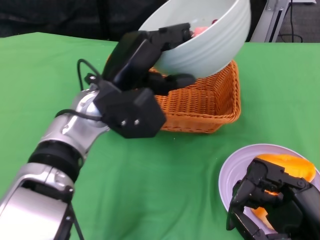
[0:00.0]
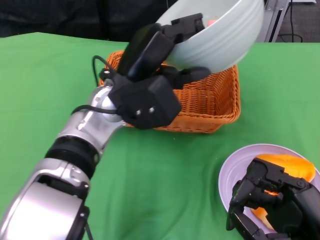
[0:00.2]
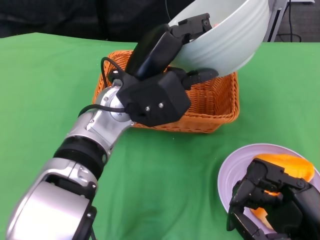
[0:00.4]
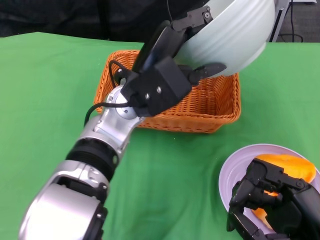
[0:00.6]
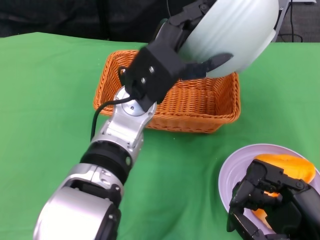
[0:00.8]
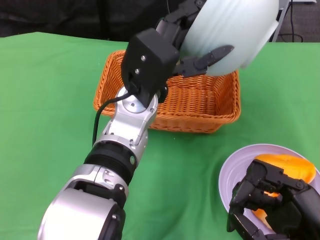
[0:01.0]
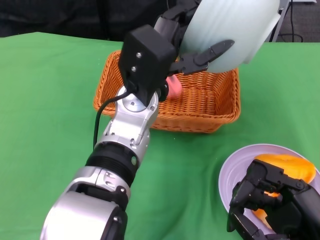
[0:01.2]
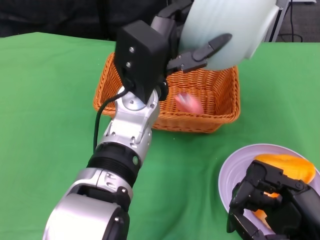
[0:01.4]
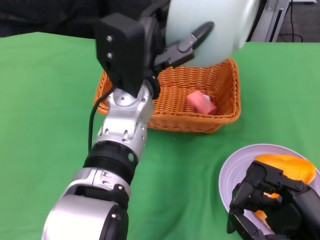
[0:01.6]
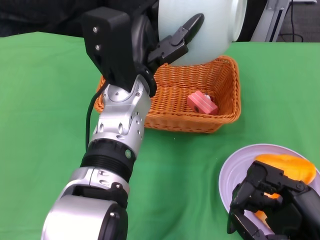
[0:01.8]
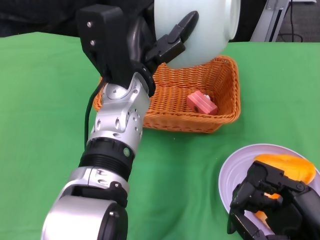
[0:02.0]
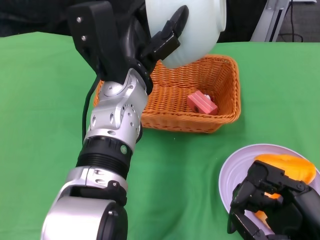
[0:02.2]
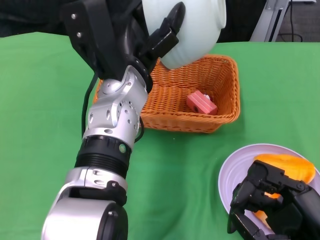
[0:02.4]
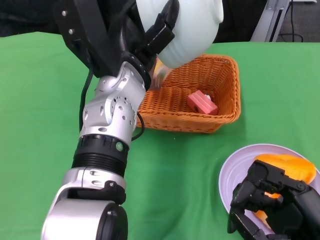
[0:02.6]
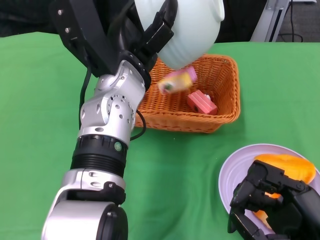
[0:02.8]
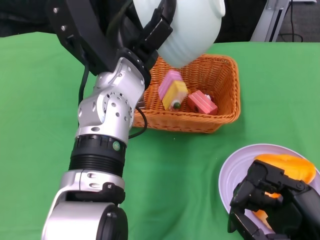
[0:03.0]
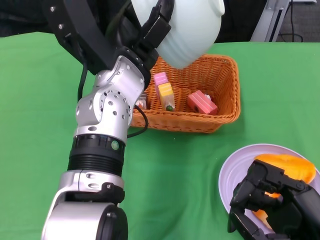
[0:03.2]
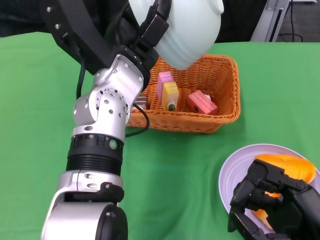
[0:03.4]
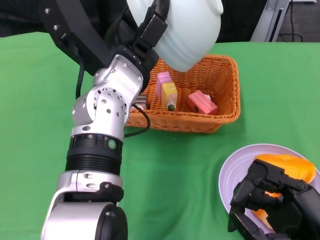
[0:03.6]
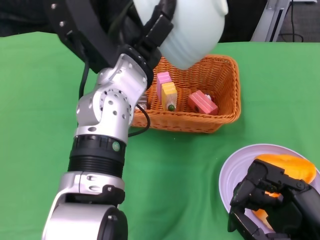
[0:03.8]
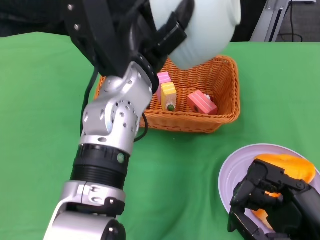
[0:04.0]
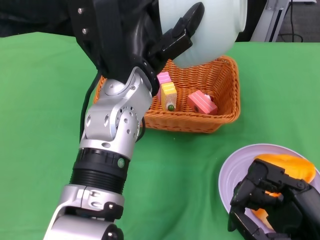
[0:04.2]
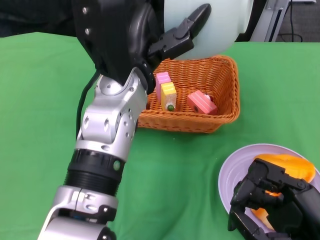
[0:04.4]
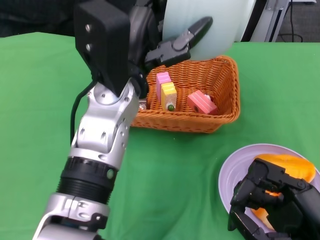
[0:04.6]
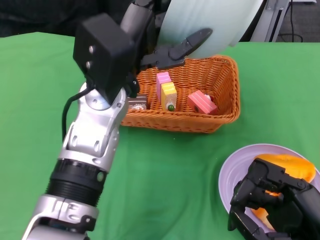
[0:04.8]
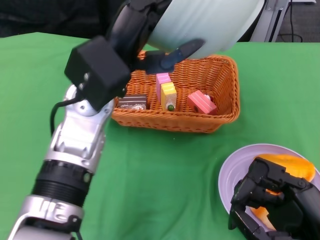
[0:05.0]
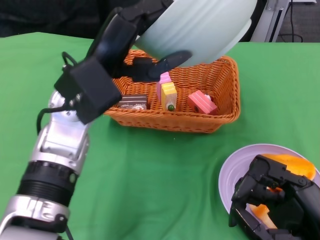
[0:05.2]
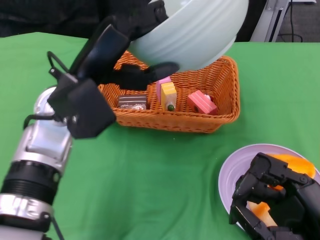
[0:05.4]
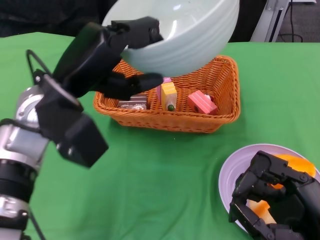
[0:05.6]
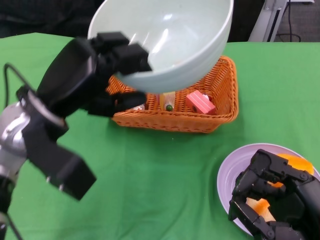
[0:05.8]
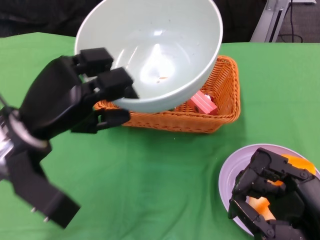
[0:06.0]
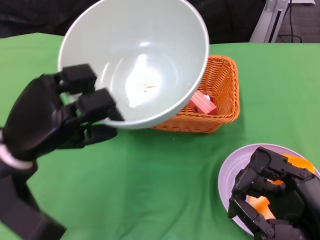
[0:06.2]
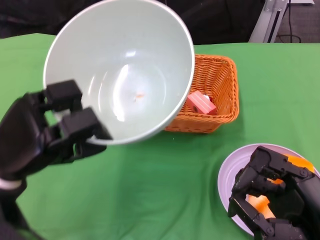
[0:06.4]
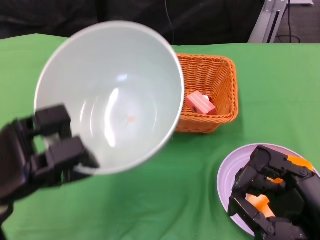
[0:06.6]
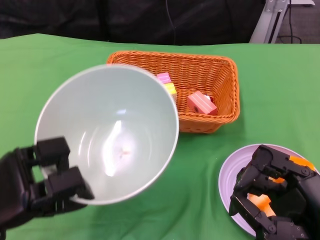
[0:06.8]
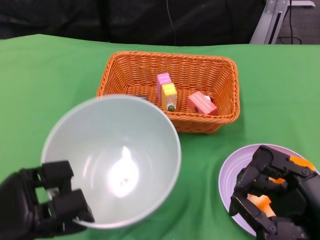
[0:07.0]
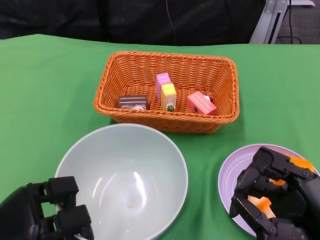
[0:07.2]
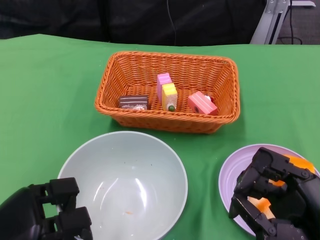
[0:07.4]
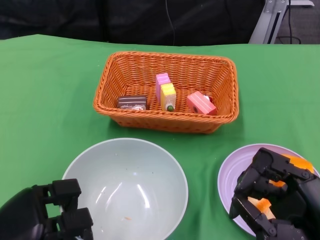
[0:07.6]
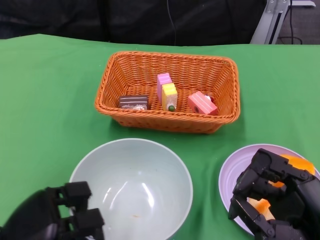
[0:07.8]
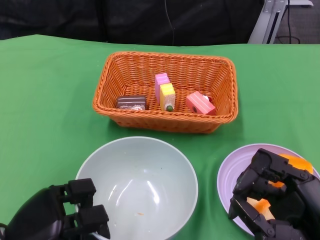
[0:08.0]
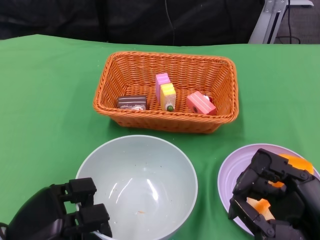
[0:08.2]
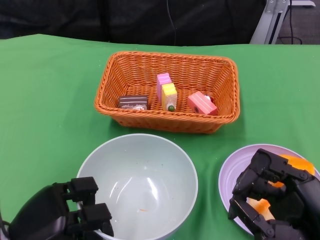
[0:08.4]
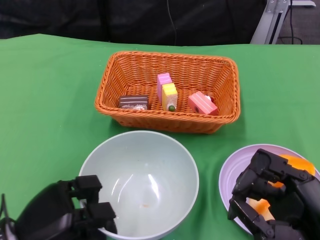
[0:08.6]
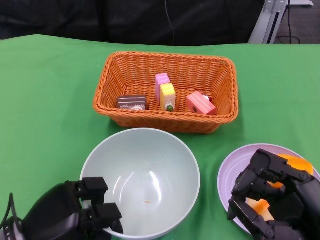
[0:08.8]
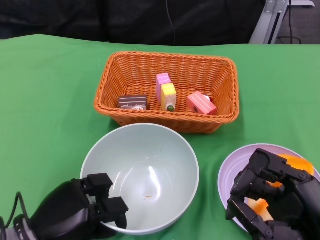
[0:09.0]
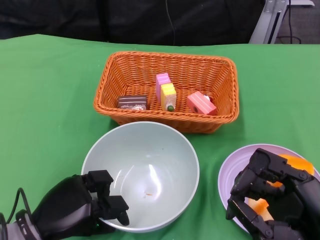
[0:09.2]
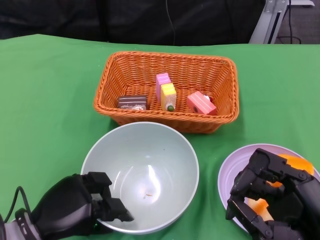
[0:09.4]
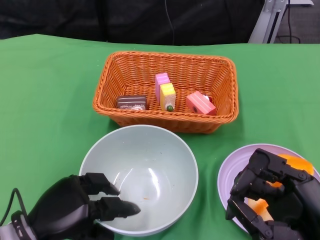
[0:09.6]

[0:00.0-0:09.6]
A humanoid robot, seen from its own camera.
Step, 0:00.0 to 0:03.8: Pour the cake into the basket with the left gripper.
Step, 0:04.0 to 0:09.6: Place the bowl on the table with the left gripper.
0:00.0 to 0:01.6: The left hand ends up about 5 cm from where it was.
0:04.8 to 0:06.4: The left hand heads to the left, downward and backward, covering approximately 20 cm.
0:06.4 to 0:08.0: The left hand travels downward and backward by about 10 cm.
0:08.0 to 0:09.6: The hands stay close to where they were, moving slightly.

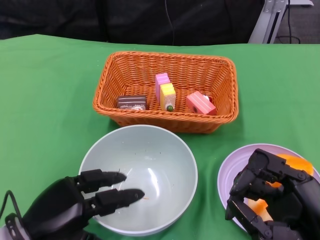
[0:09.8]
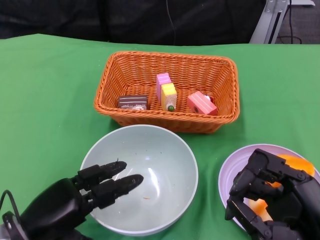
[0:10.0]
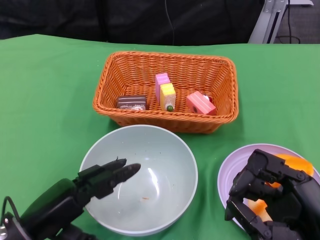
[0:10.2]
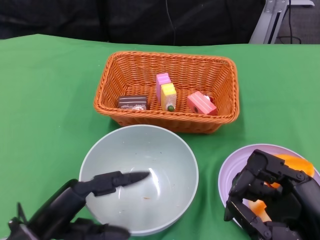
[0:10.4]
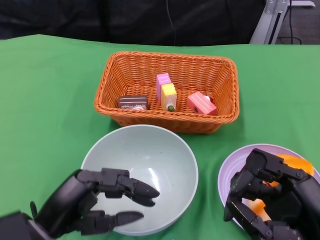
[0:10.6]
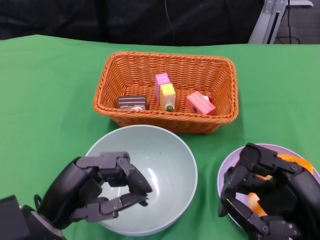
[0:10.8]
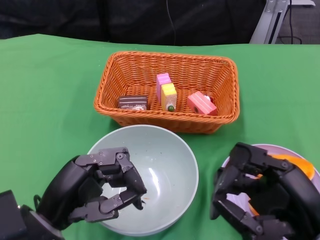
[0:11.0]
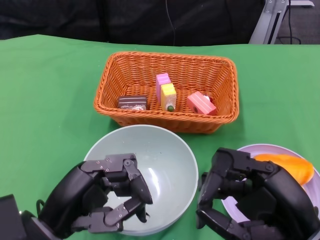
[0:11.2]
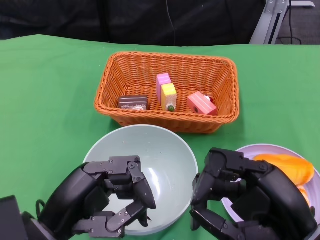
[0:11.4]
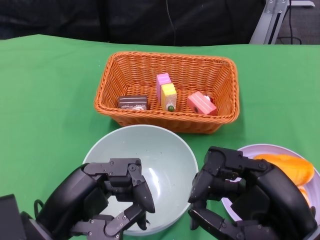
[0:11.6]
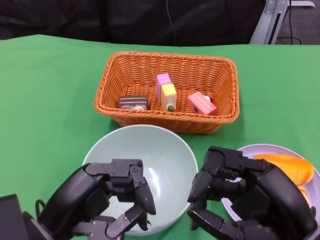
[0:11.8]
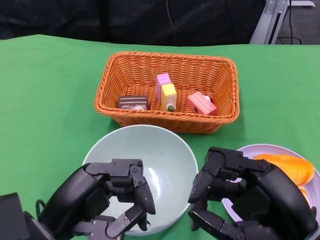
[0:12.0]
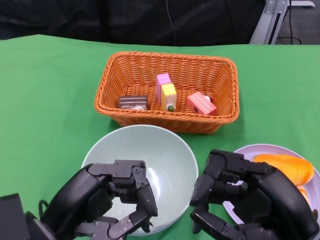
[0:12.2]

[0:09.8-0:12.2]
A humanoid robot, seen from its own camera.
0:09.8 to 0:11.0: The left hand moves upward, some 5 cm.
0:11.0 to 0:12.2: The hands stay close to where they were, moving slightly.

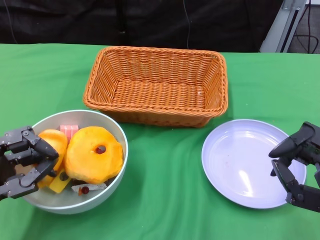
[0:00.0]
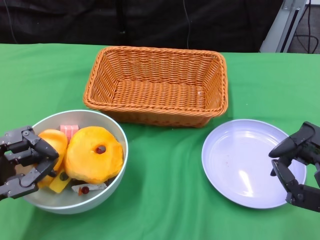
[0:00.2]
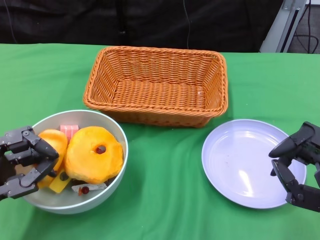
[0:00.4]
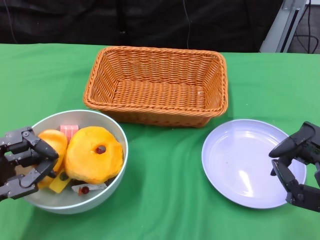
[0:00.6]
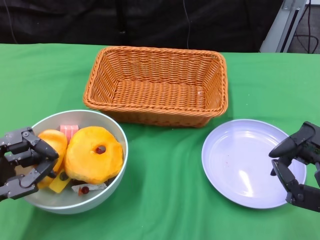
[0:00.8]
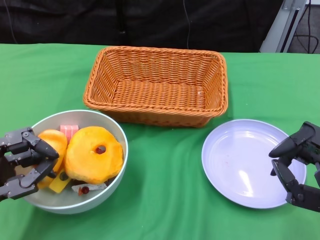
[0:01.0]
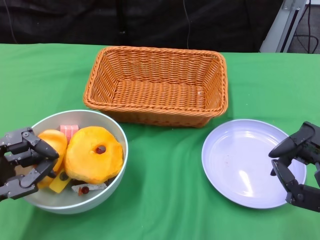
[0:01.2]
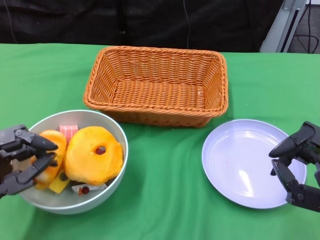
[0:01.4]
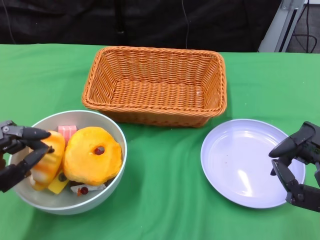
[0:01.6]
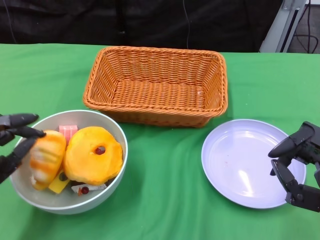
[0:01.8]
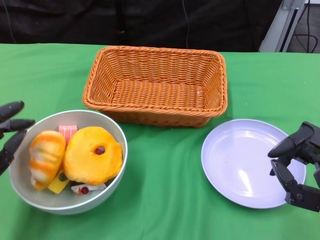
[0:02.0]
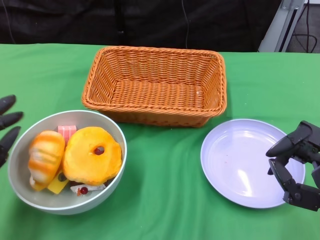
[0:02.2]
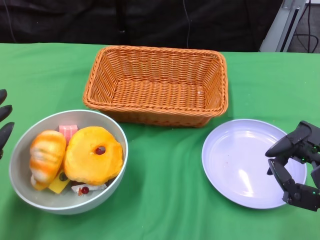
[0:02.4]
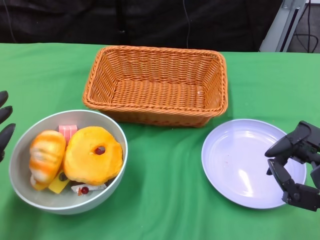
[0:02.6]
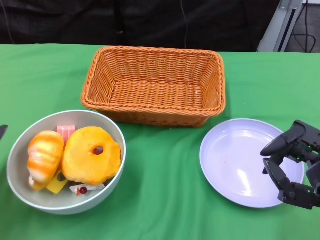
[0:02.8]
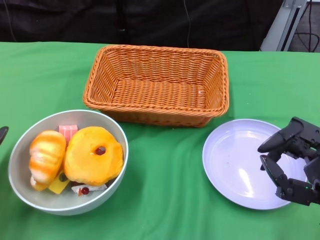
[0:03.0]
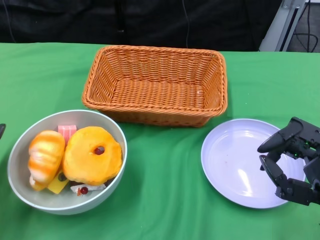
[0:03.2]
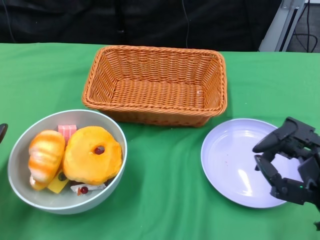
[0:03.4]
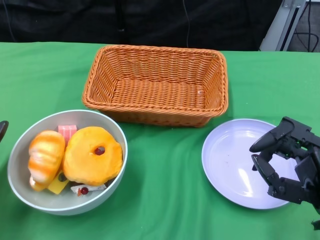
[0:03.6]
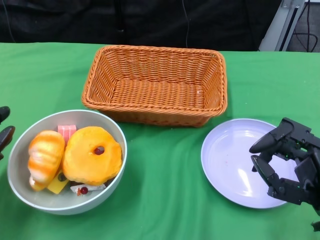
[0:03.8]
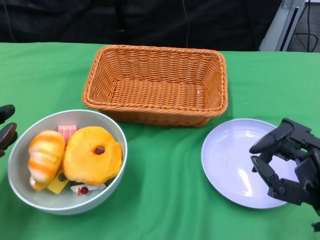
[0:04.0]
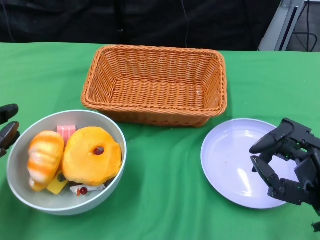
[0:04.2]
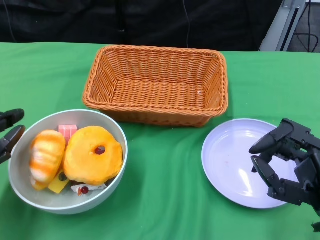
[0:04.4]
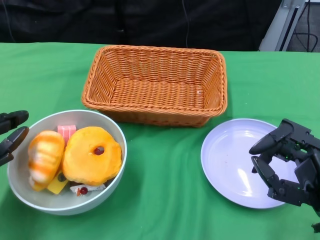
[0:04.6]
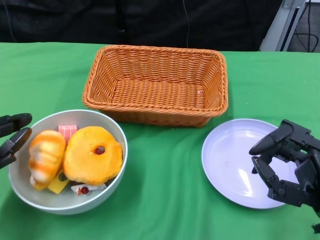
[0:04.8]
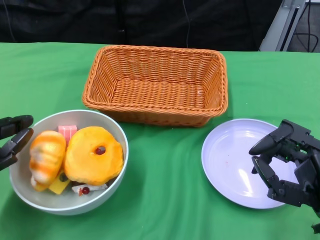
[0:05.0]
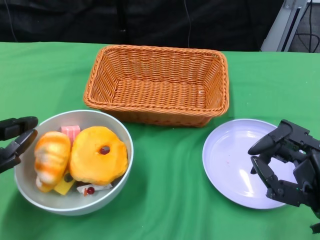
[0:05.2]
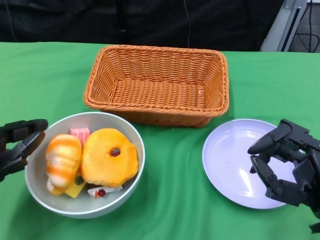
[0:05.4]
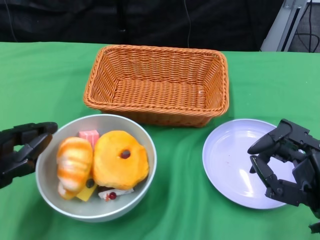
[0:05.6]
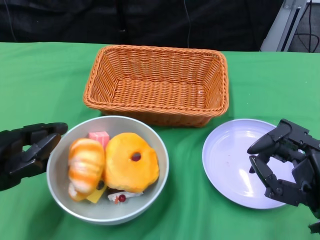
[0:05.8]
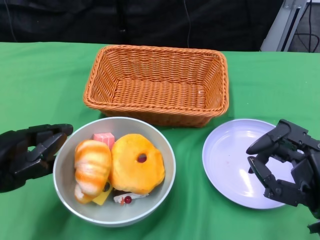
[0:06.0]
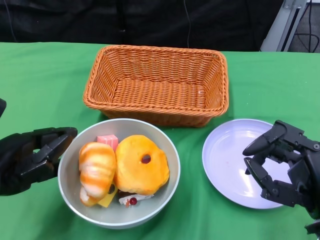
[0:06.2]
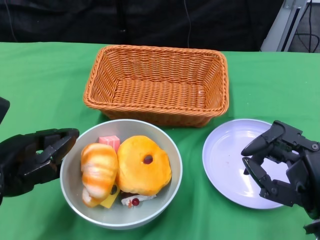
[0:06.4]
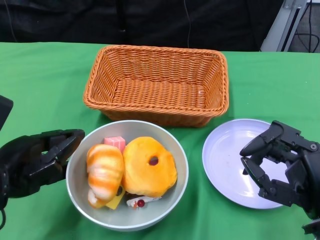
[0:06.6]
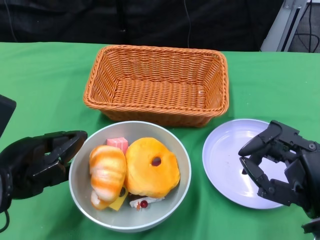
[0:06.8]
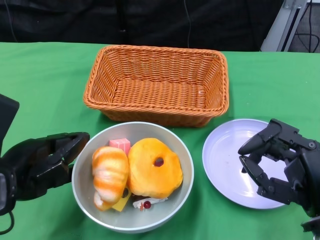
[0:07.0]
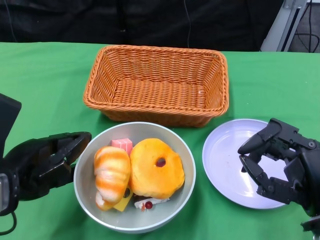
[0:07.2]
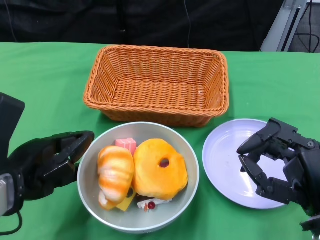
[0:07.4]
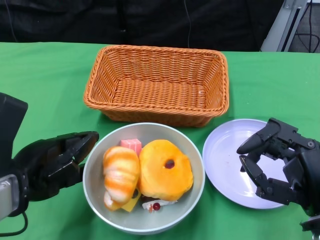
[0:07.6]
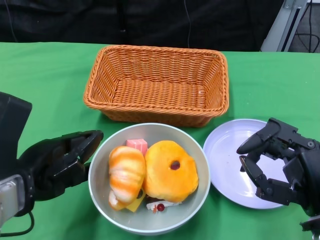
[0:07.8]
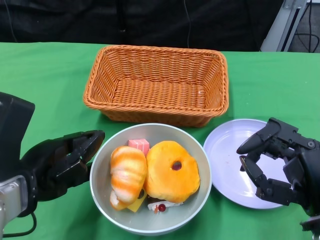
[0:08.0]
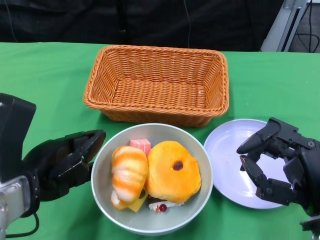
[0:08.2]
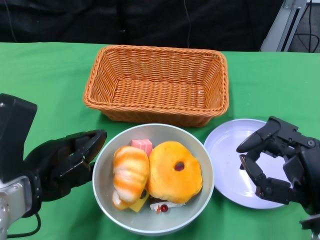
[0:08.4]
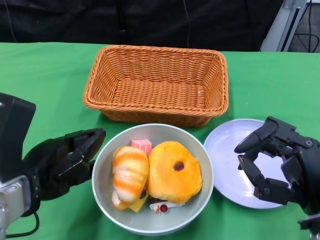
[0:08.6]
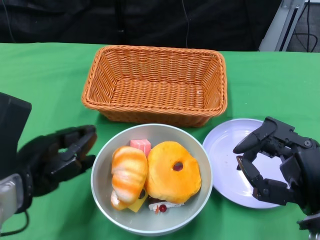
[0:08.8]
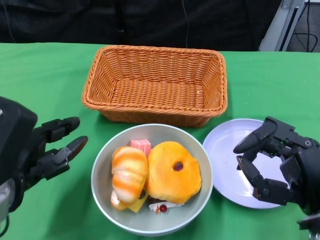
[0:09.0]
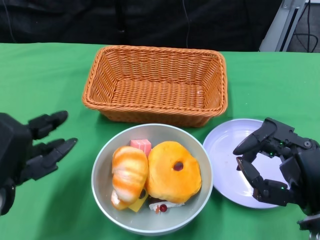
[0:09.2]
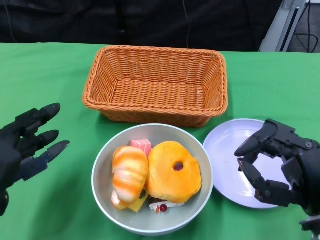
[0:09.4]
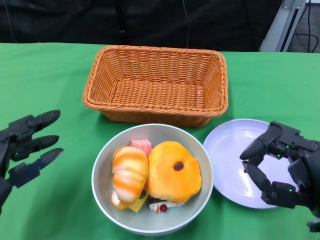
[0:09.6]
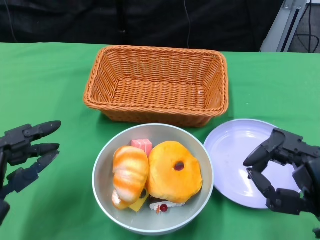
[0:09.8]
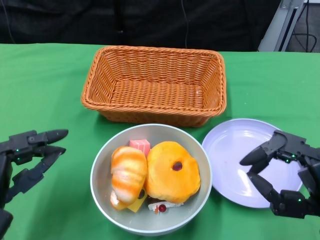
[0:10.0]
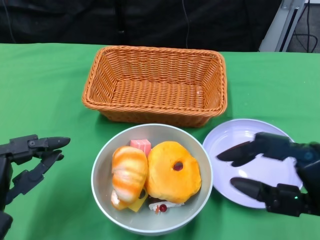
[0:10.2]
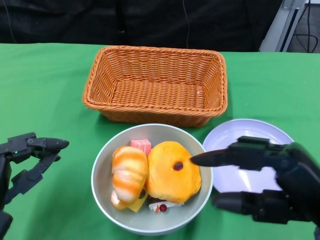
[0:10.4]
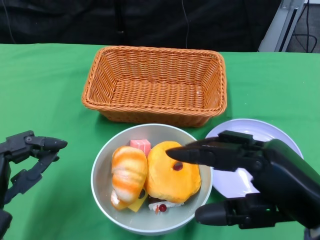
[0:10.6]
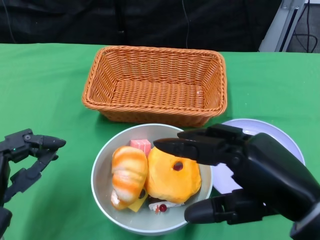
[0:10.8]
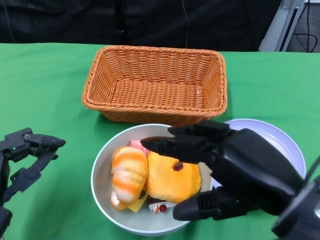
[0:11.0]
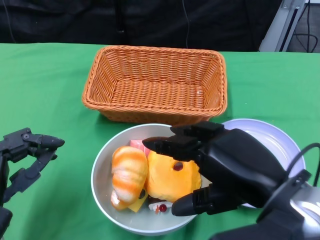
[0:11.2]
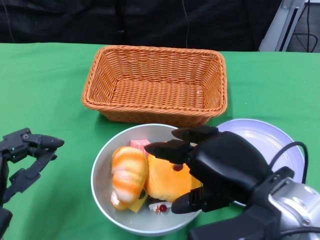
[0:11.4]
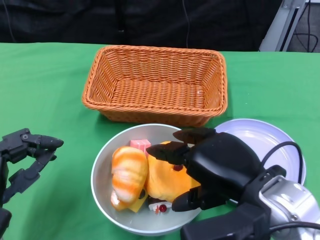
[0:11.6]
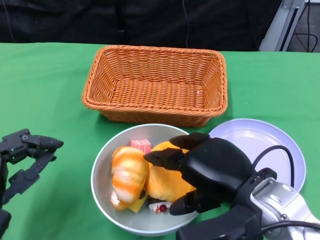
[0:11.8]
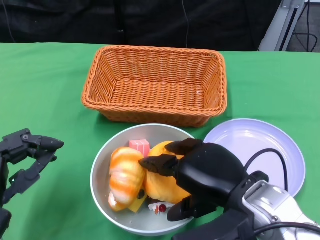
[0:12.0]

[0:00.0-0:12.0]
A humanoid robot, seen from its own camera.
Step, 0:00.0 to 0:08.8: Push the bowl to the center of the table using the left gripper.
0:01.6 to 0:03.0: The left hand ends up some 5 cm from where it was.
0:03.0 to 0:04.4: The hands move only a little.
0:04.4 to 0:06.0: The left hand moves some 5 cm.
0:09.0 to 0:10.4: The right hand heads upward, covering about 5 cm, while the left hand shifts some 5 cm downward.
0:10.4 to 0:12.0: The right hand travels to the left by roughly 10 cm.
